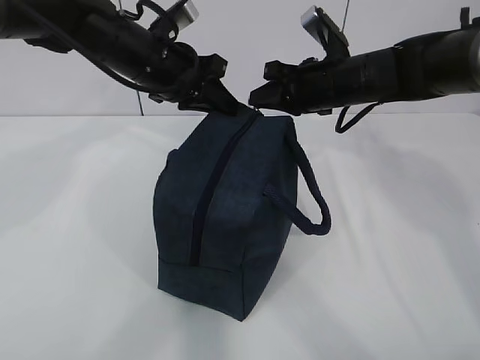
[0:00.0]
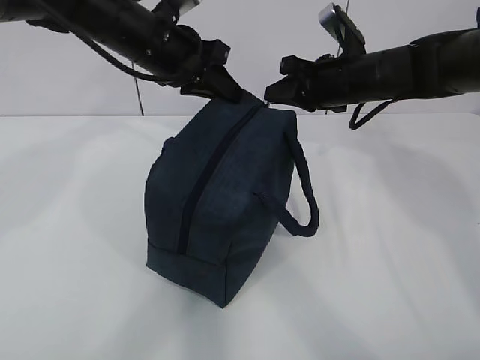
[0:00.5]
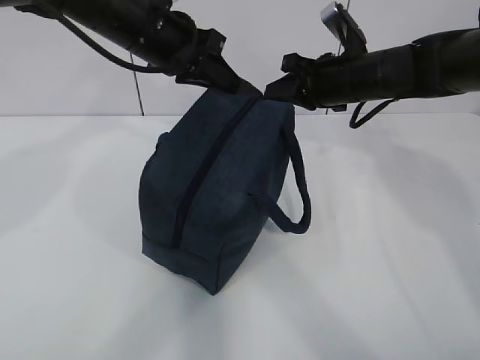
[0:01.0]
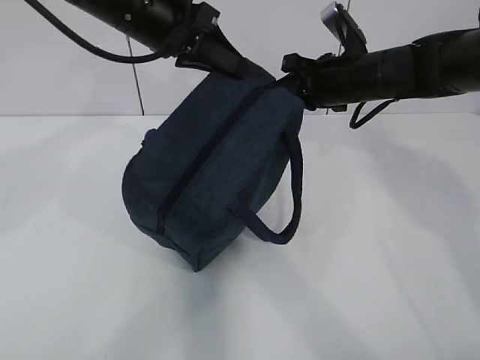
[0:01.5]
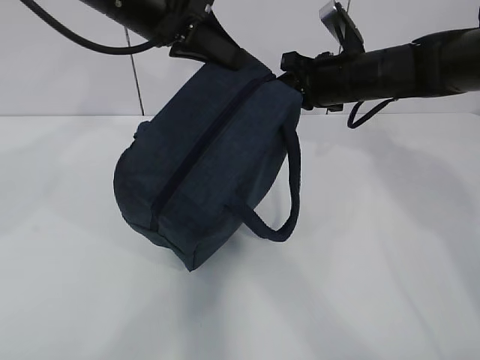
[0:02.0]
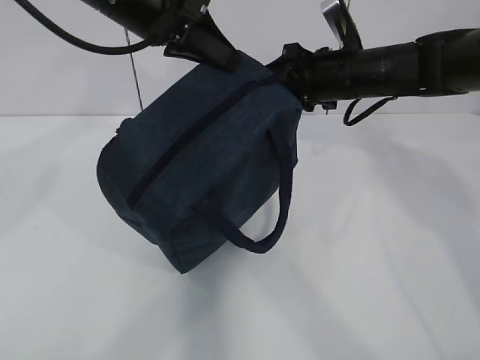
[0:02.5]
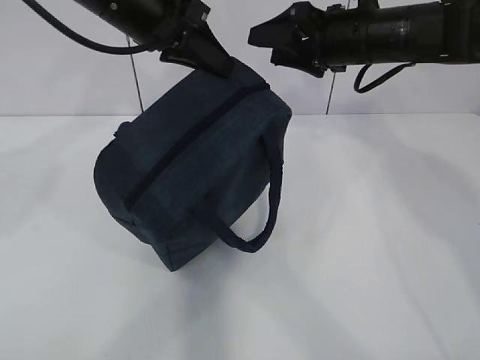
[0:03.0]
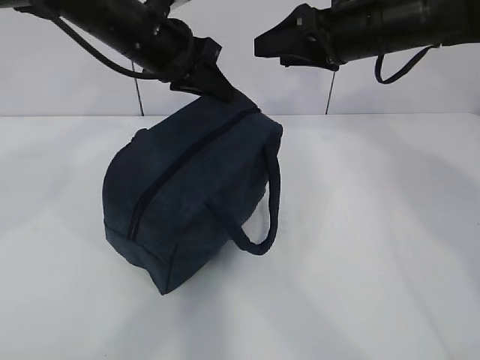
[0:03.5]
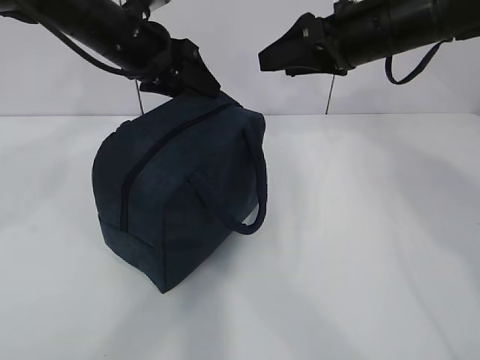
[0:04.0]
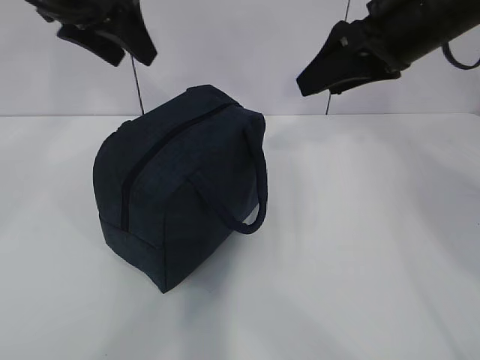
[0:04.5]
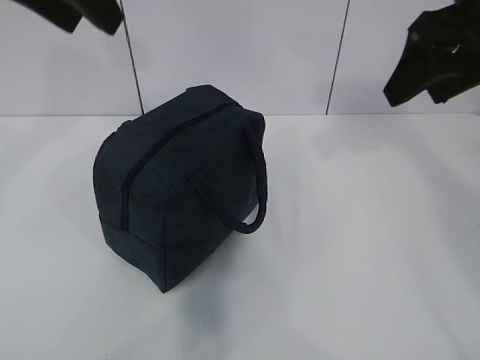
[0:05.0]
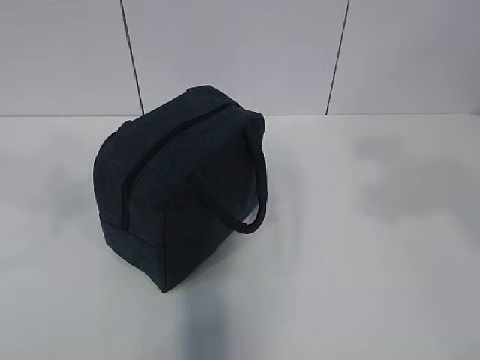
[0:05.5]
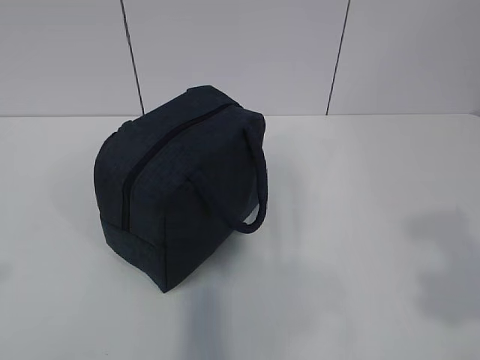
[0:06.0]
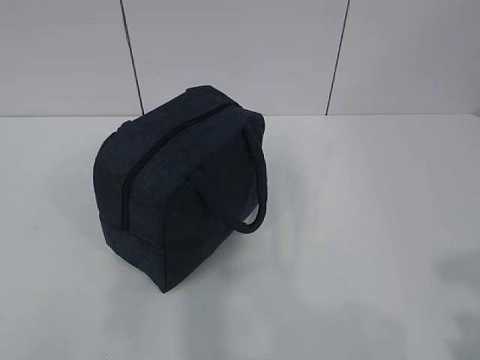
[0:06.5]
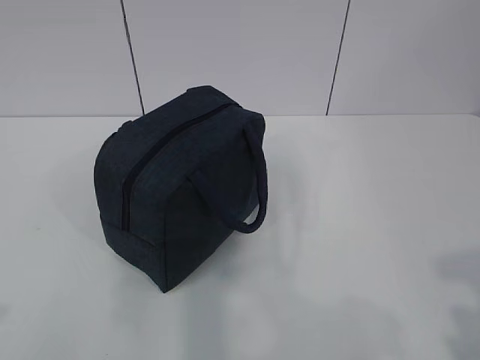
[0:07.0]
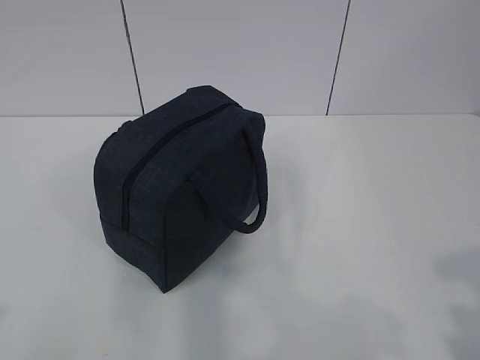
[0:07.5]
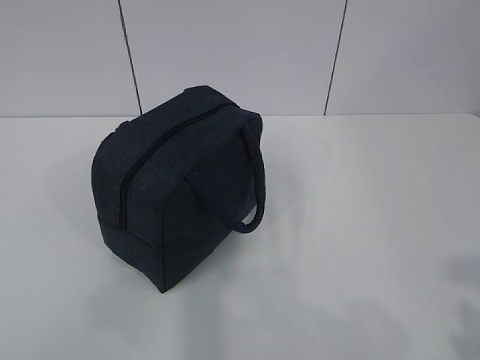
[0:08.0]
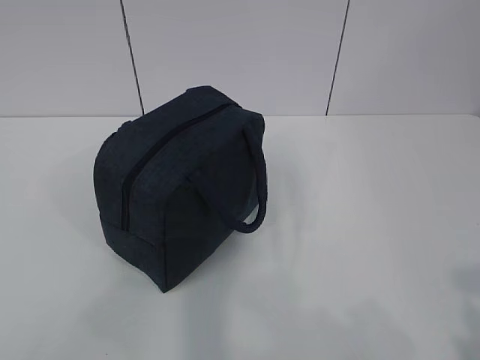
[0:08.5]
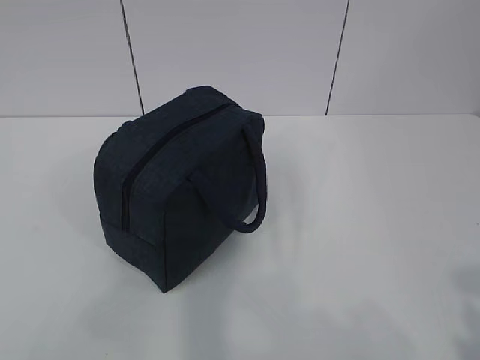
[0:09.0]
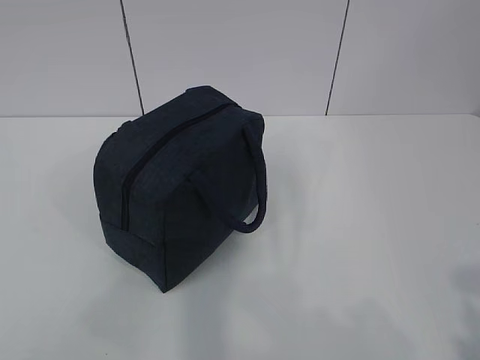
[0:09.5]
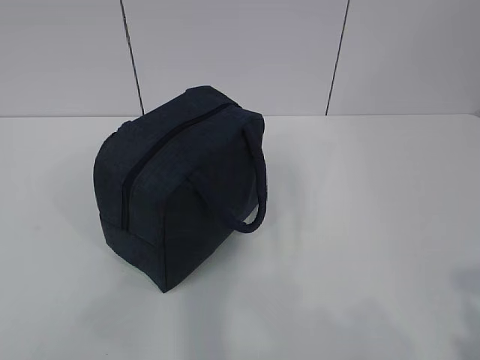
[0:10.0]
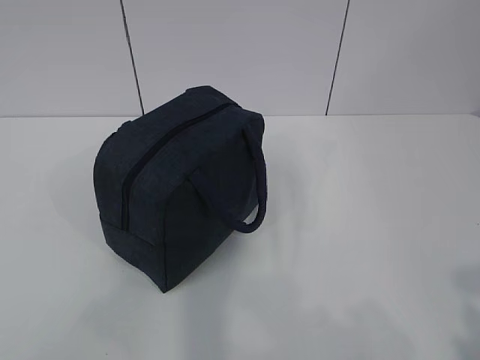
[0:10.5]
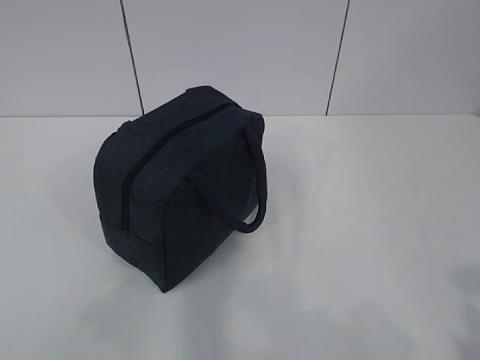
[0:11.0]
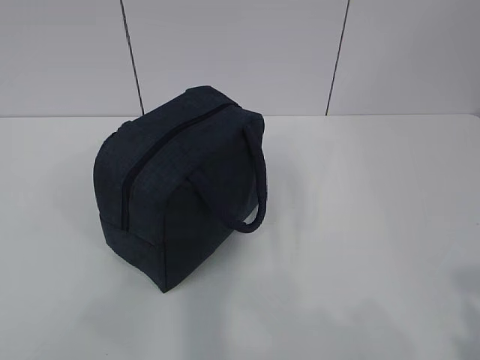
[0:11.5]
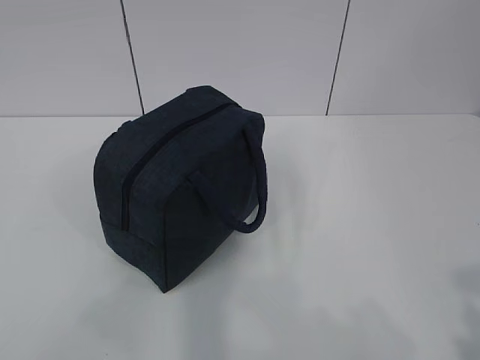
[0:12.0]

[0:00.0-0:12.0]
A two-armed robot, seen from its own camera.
0:00.0 to 0:02.0: The left gripper heads upward, covering approximately 10 cm.
0:02.0 to 0:04.0: The right gripper goes about 10 cm upward and backward, and opens up; the left gripper is displaced downward by about 5 cm, and opens its fingers.
0:04.0 to 0:06.0: The right gripper travels backward by approximately 35 cm, while the left gripper moves backward and to the left, about 50 cm.
0:06.0 to 0:08.0: The right gripper goes some 5 cm downward. Meanwhile the left gripper heads downward, covering approximately 10 cm.
0:08.0 to 0:10.0: The grippers move only a little.
0:10.0 to 0:12.0: The two grippers keep their place.

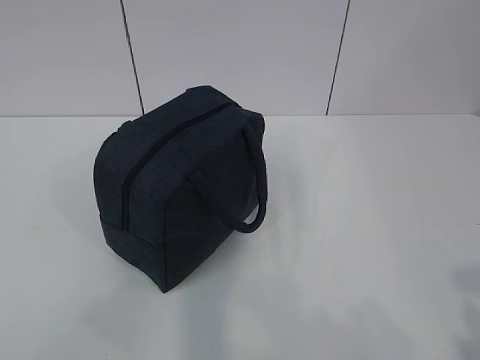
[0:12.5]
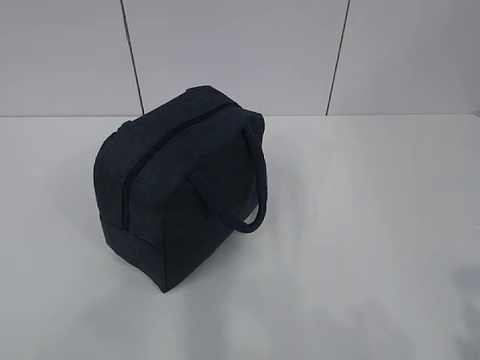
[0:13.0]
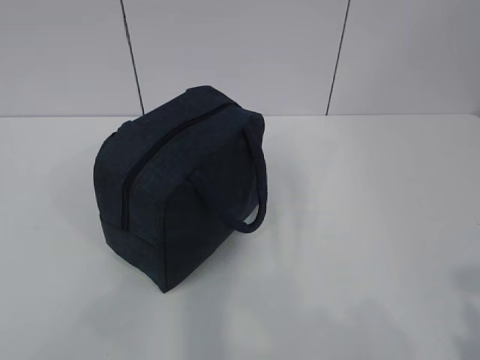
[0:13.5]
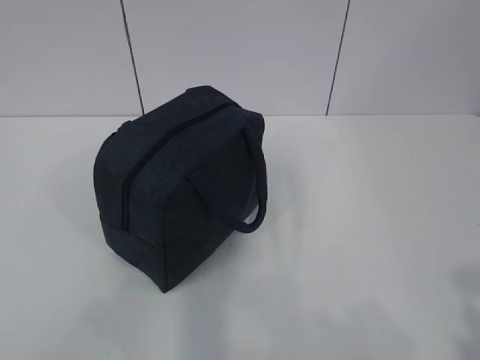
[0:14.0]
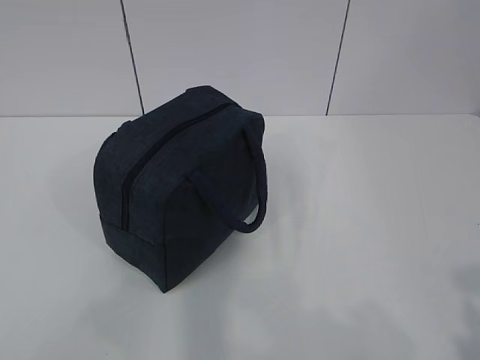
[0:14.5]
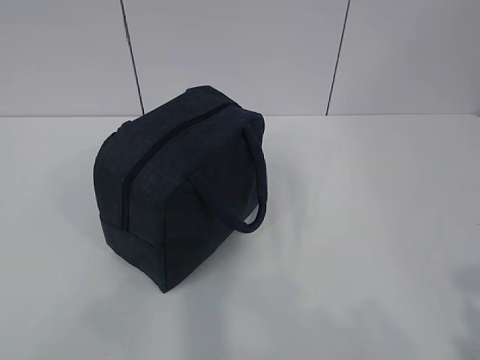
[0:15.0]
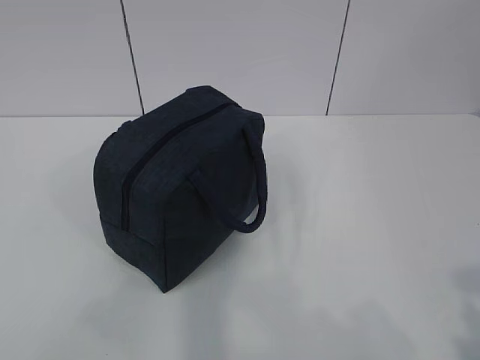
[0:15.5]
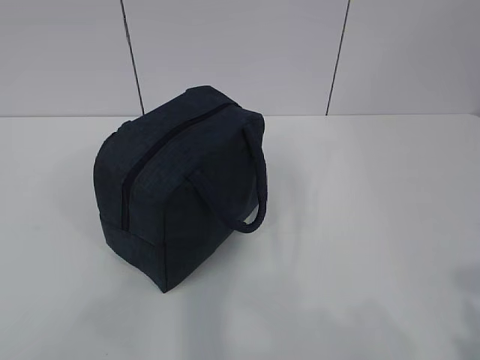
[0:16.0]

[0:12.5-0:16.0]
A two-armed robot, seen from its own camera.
0:12.5 to 0:16.0: Both grippers stay about where they are.

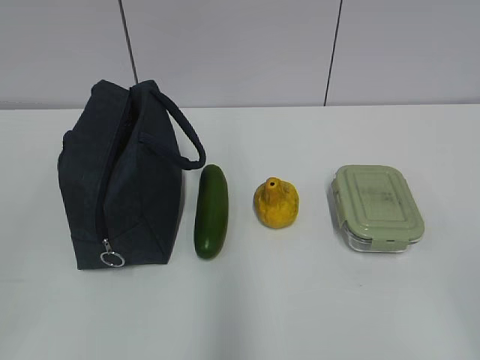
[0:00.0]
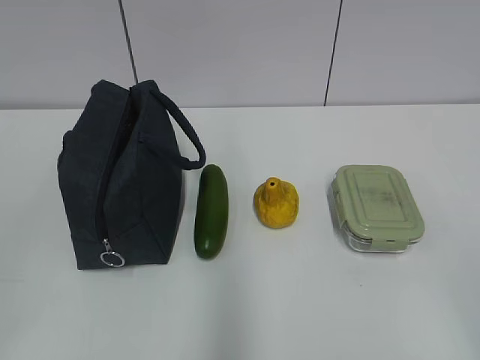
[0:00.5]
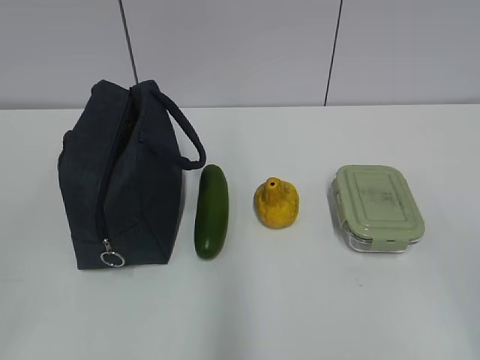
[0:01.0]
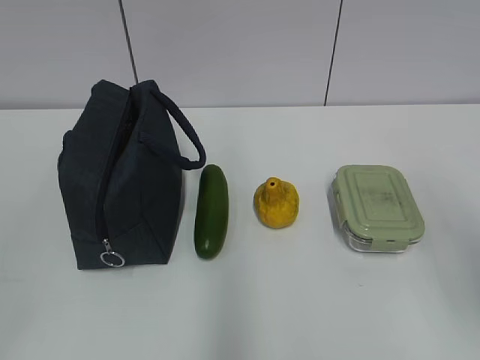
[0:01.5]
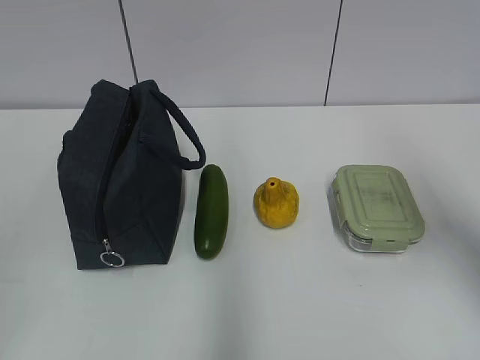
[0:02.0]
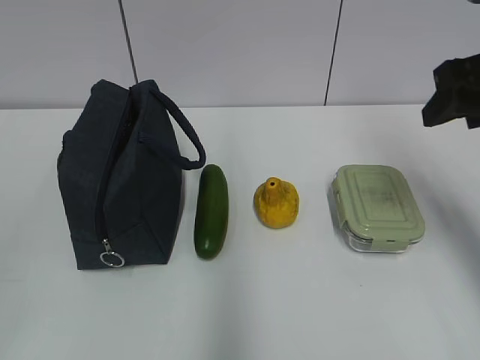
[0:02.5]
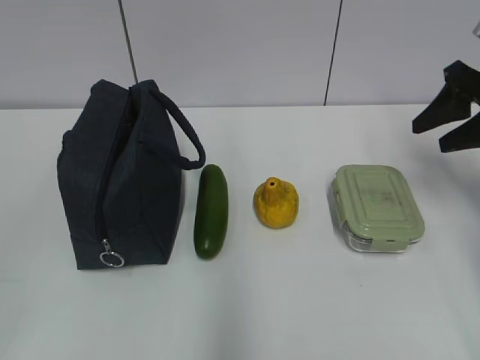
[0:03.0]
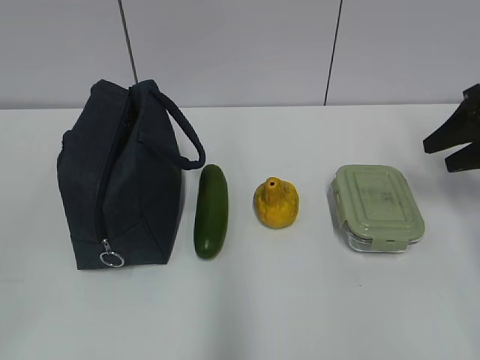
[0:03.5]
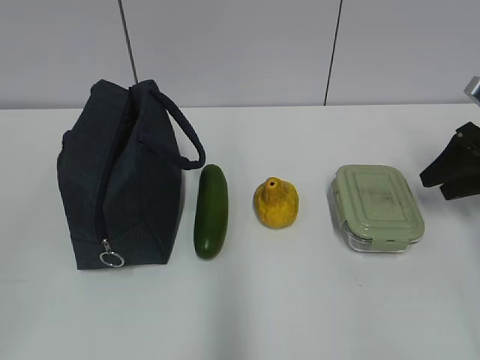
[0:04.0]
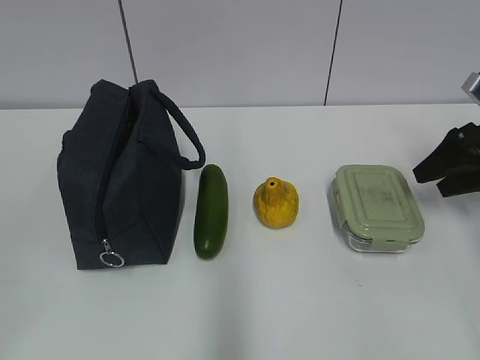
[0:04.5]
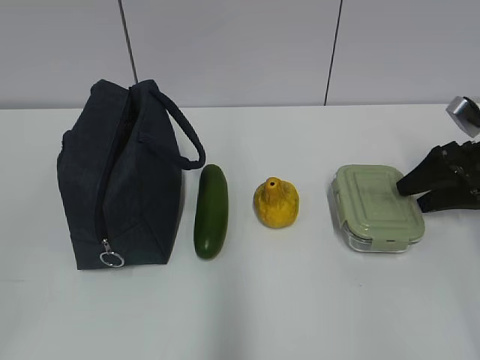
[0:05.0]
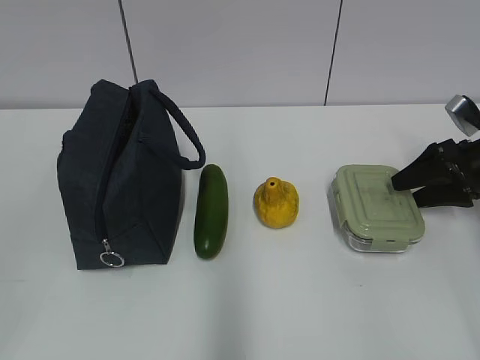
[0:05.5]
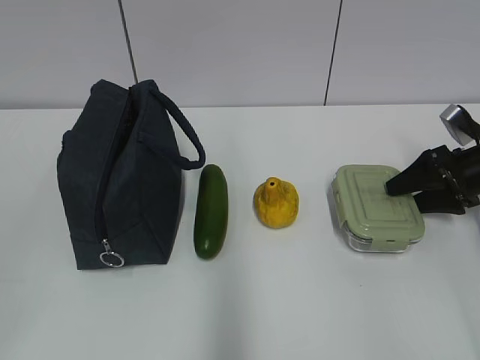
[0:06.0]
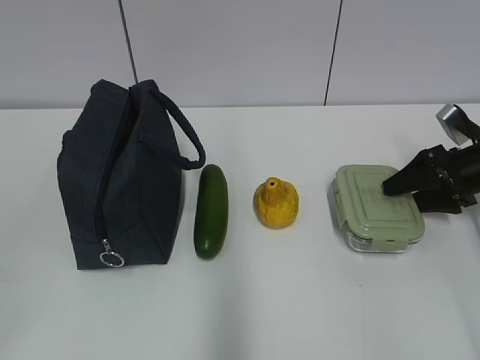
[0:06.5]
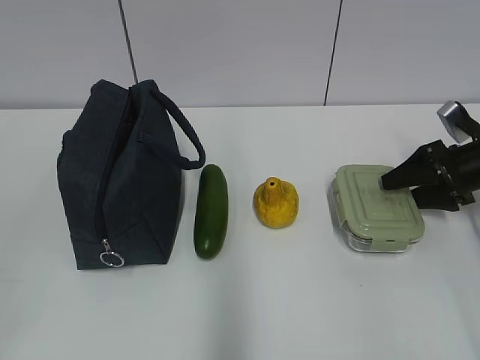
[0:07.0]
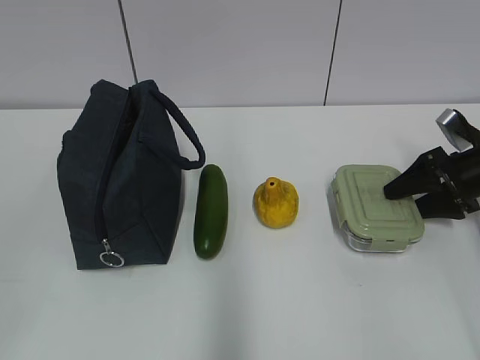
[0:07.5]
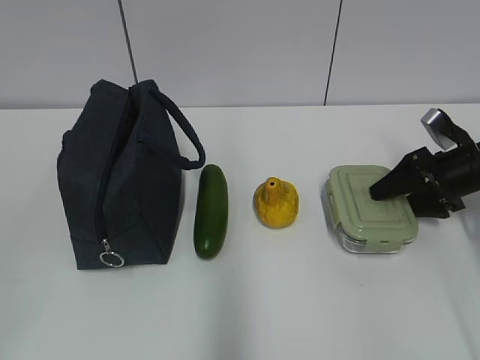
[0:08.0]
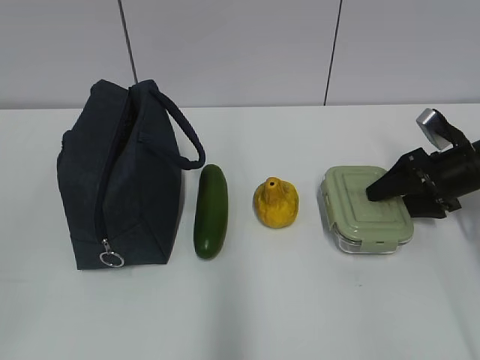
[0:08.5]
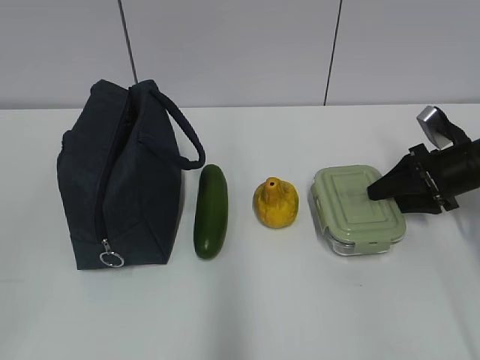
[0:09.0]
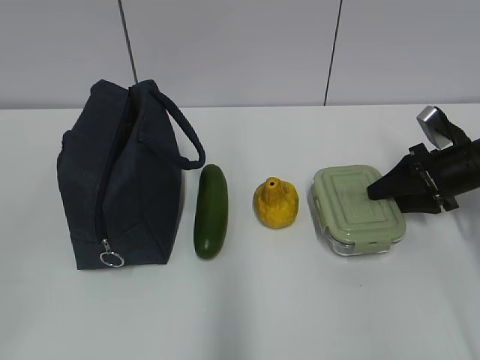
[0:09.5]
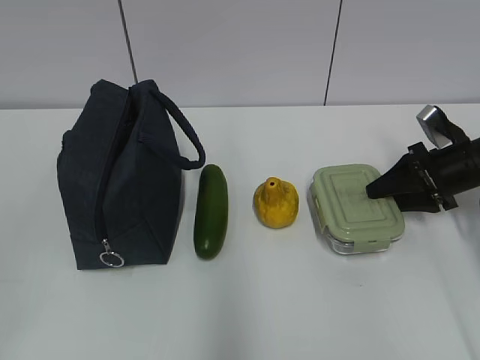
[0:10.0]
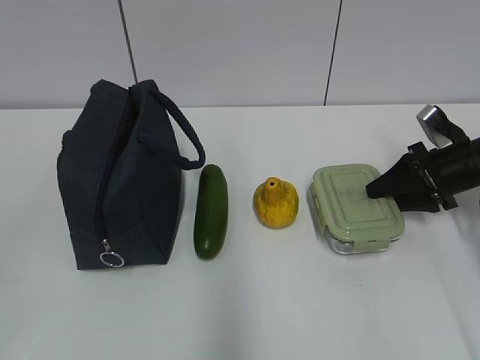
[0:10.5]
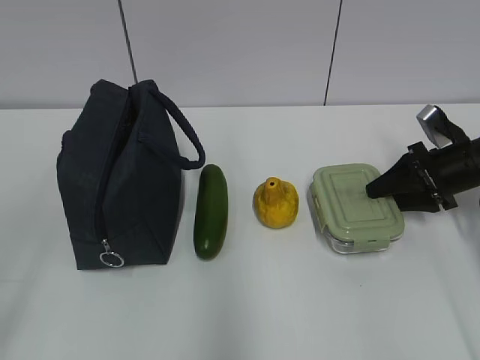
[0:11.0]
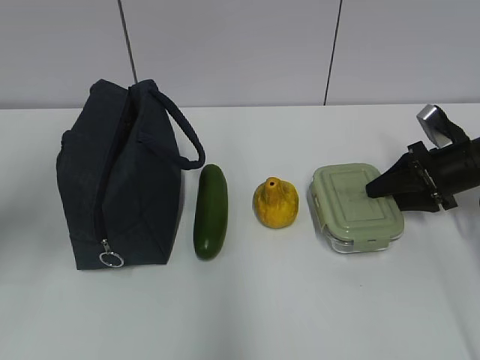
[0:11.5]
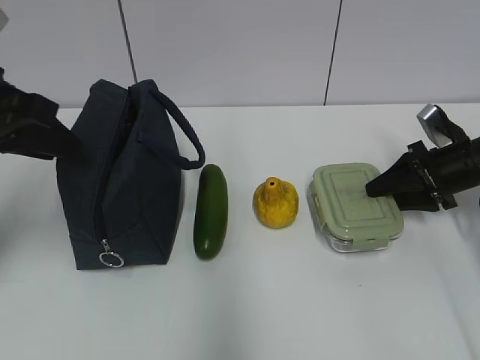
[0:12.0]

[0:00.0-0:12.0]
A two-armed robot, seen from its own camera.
Step, 0:00.0 to 0:11.0: Grab the lunch box with your right hand.
0:02.0 to 0:04.0: The right gripper shifts approximately 25 cm forward, downward and to the right.
0:04.0 to 0:06.0: The right gripper heads downward, covering about 5 cm.
0:06.0 to 0:08.0: The grippers move only a little.
0:08.0 to 0:10.0: Both grippers stay put.
0:10.0 to 0:12.0: The left gripper shifts roughly 25 cm forward.
